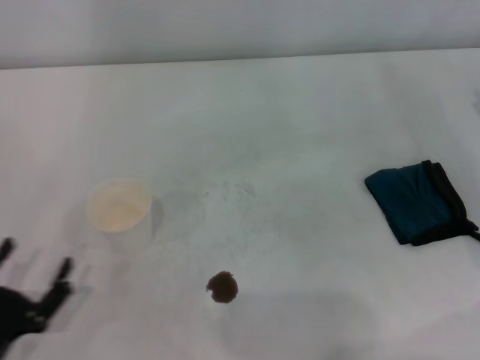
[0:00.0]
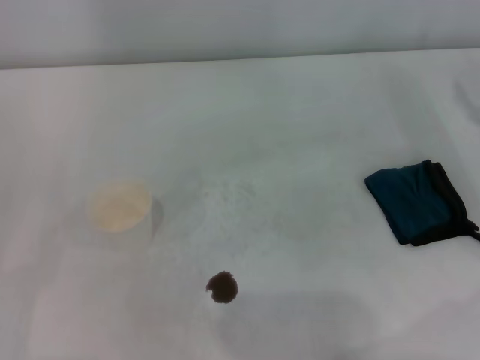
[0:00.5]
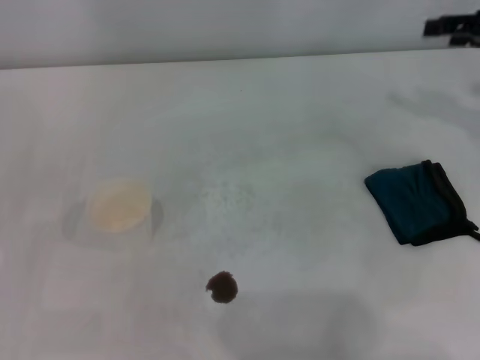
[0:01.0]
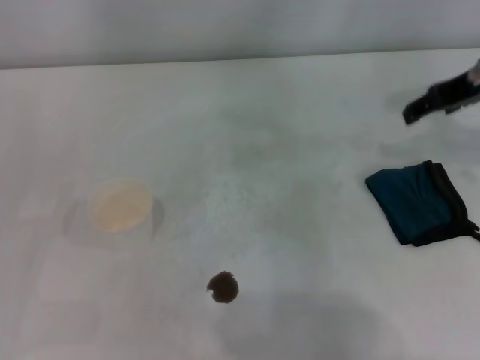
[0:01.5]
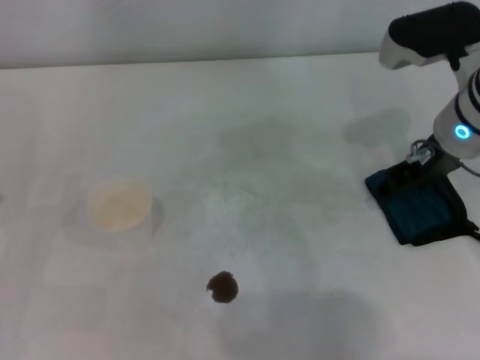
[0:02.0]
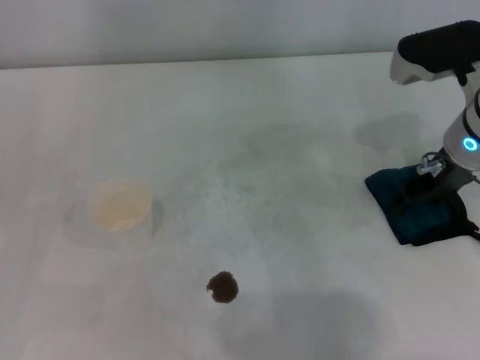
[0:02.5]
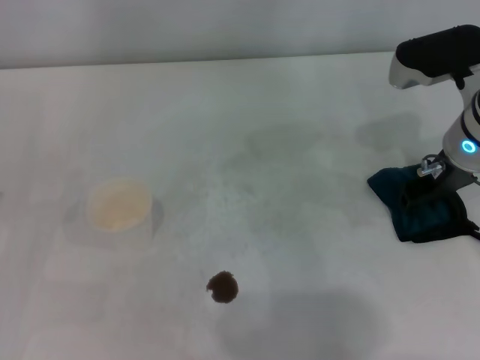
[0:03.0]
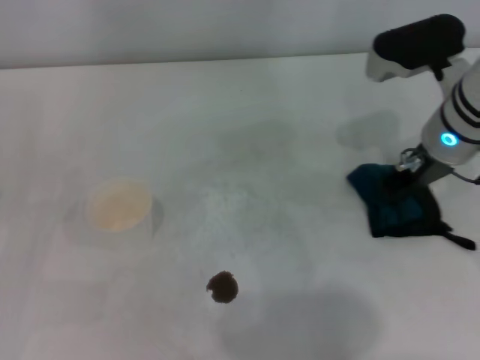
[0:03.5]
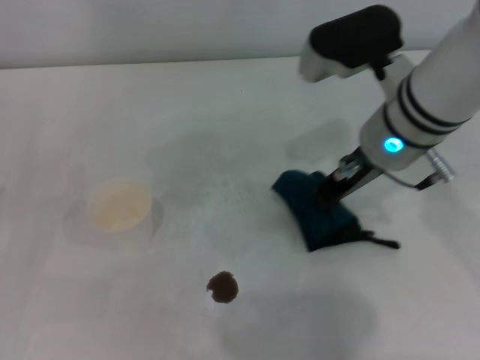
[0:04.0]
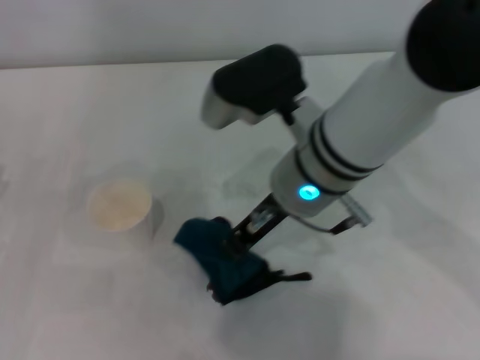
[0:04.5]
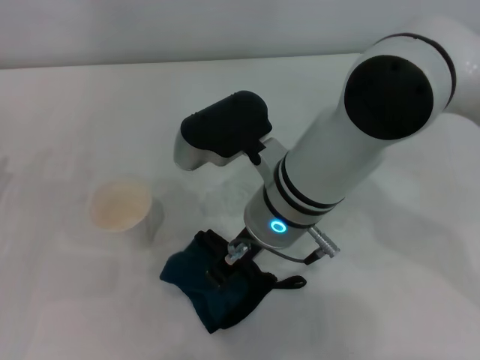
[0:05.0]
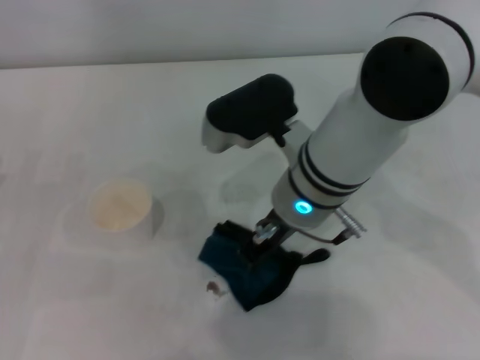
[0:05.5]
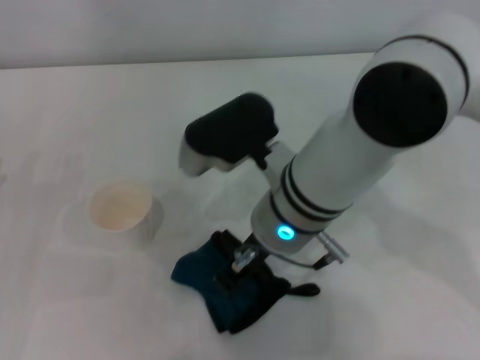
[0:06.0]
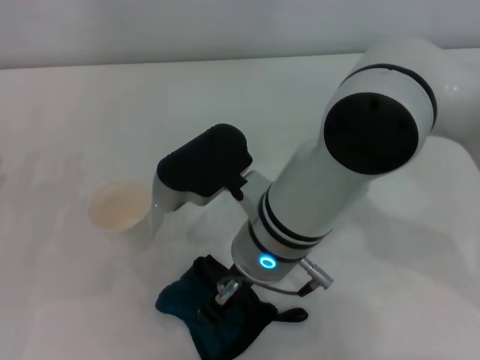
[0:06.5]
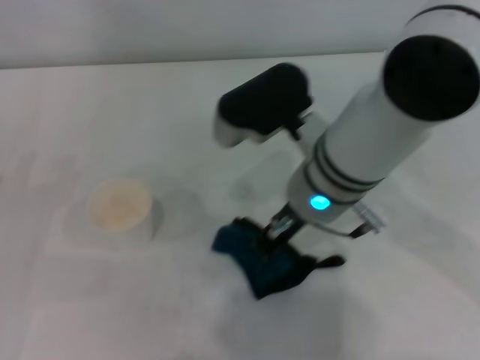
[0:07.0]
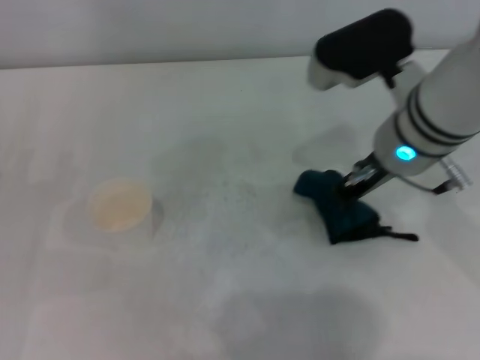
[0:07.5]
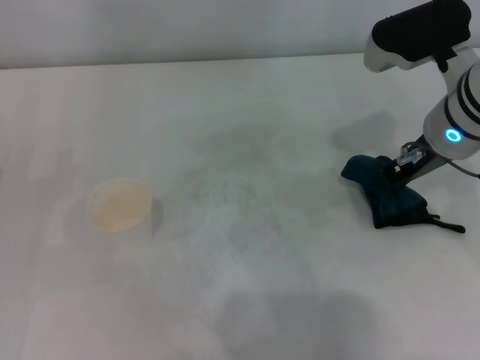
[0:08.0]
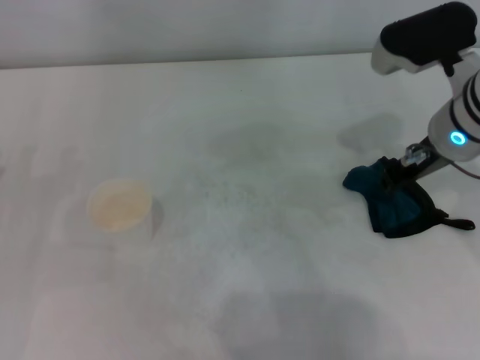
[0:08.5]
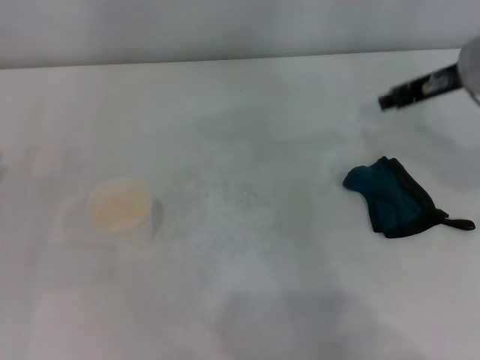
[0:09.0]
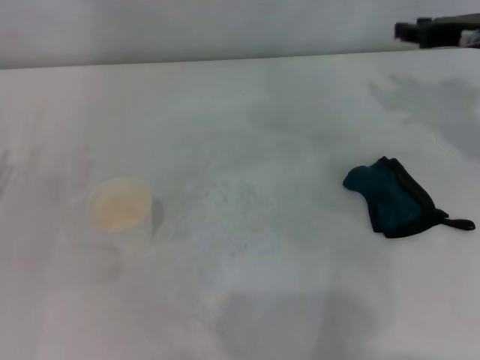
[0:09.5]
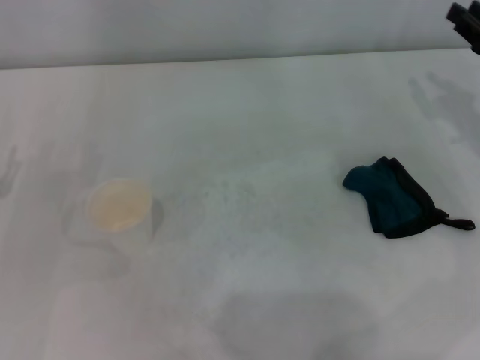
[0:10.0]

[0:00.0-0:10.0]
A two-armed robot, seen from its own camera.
Step, 0:00.0 to 0:03.0: Grasp the rag with the right gripper.
Step, 0:03.5 to 0:07.5: Wipe the stains off the table with the right gripper.
Step, 0:08.0 to 0:08.5: Place the rag on the table with the right gripper.
0:00.0 to 0:02.0: The right gripper shifts about 20 cm to the left and upward. The left gripper travels forward and to the left by approximately 10 cm.
0:02.0 to 0:04.0: The right gripper heads to the left, covering roughly 5 cm, and closes up.
0:04.0 to 0:06.0: The right gripper shifts roughly 10 cm to the left.
0:06.0 to 0:08.0: The right gripper travels to the right by roughly 15 cm.
0:08.0 to 0:10.0: The right gripper travels to the right by roughly 15 cm, and opens up.
